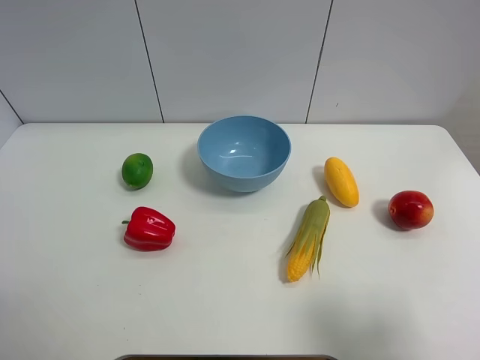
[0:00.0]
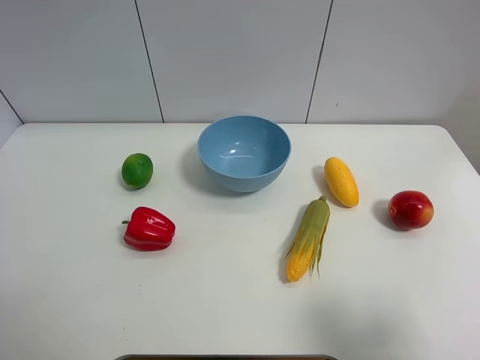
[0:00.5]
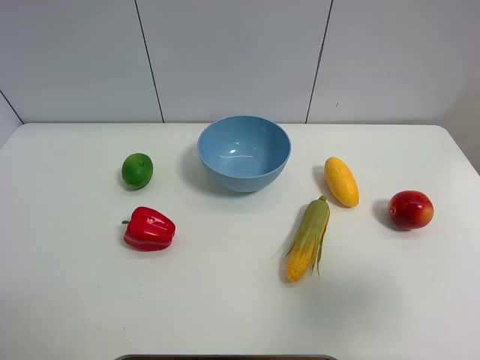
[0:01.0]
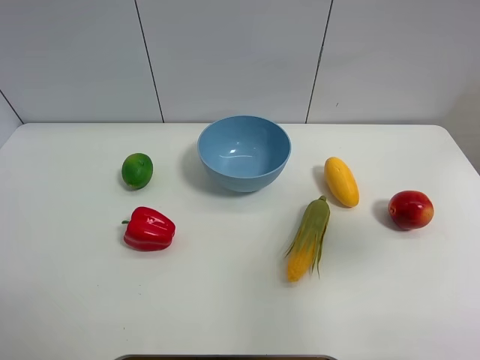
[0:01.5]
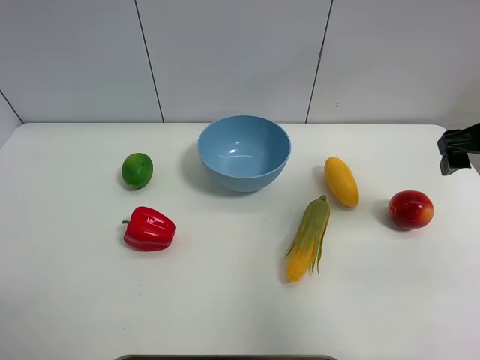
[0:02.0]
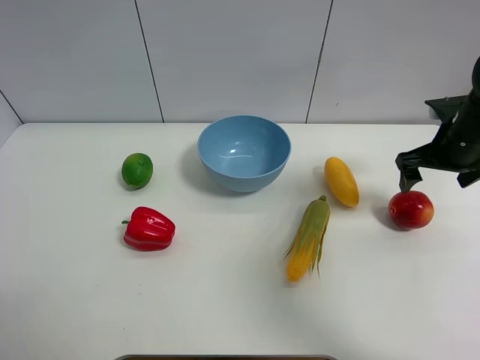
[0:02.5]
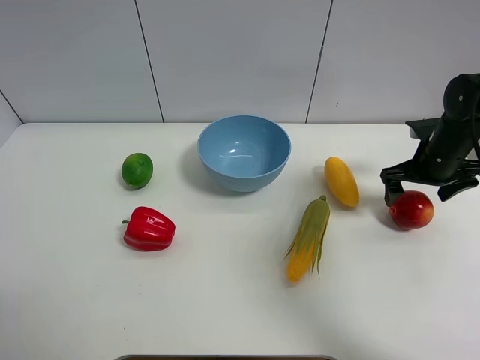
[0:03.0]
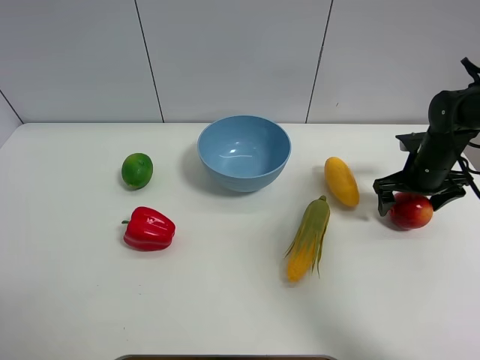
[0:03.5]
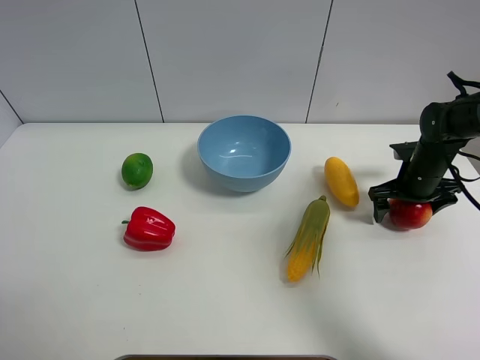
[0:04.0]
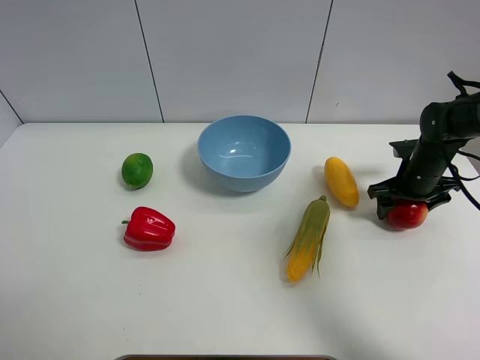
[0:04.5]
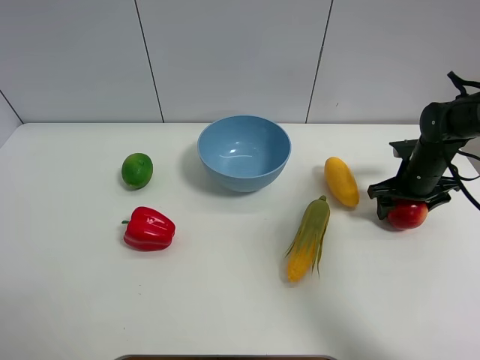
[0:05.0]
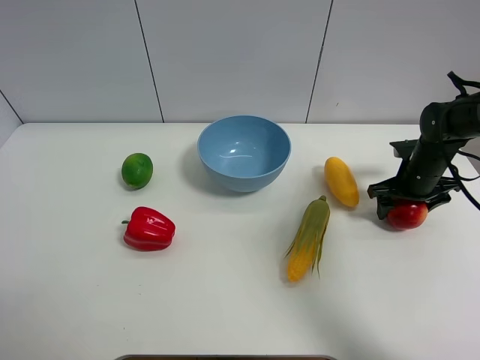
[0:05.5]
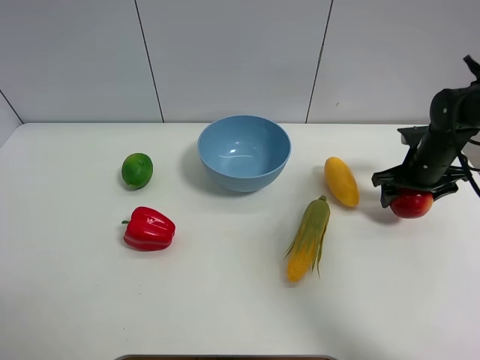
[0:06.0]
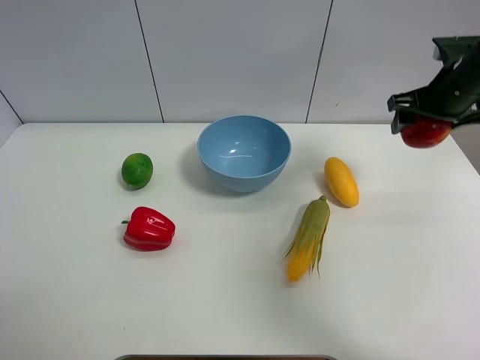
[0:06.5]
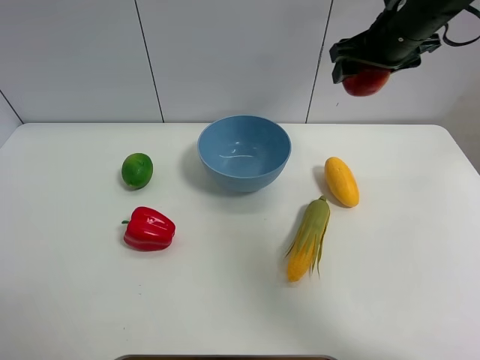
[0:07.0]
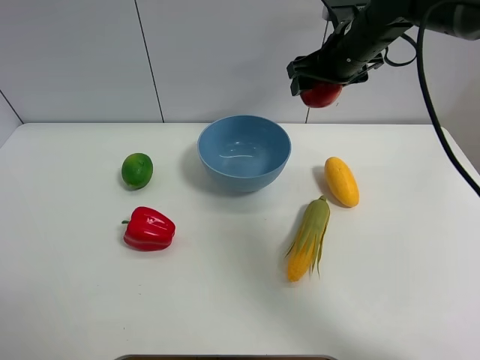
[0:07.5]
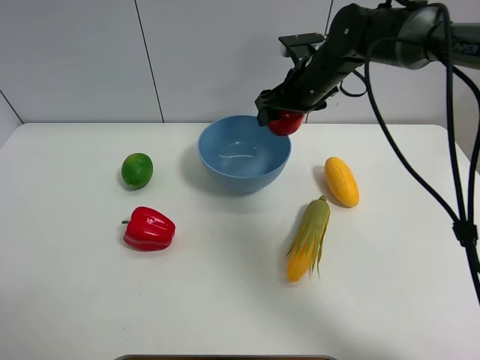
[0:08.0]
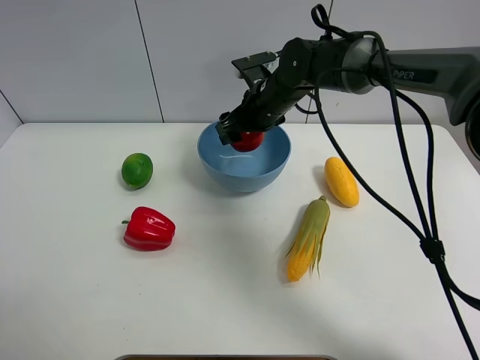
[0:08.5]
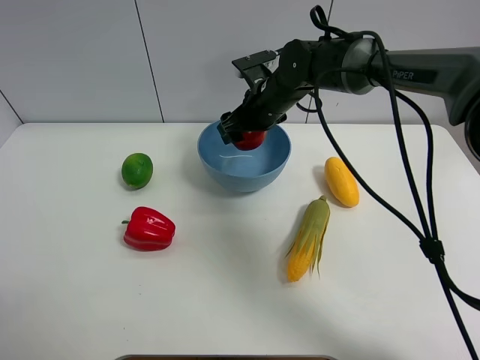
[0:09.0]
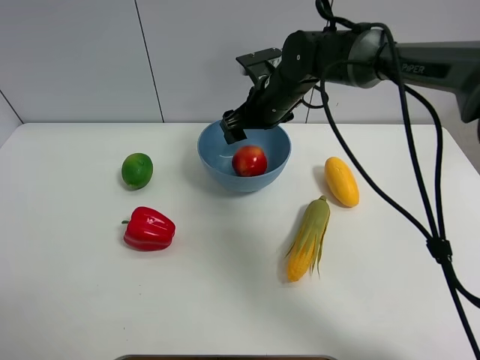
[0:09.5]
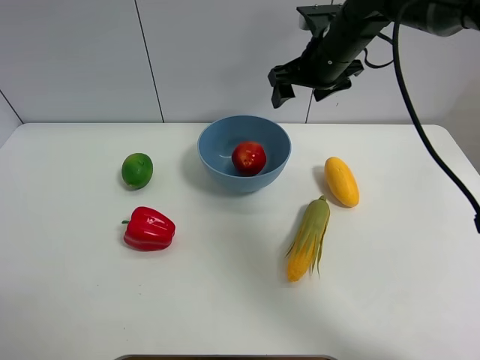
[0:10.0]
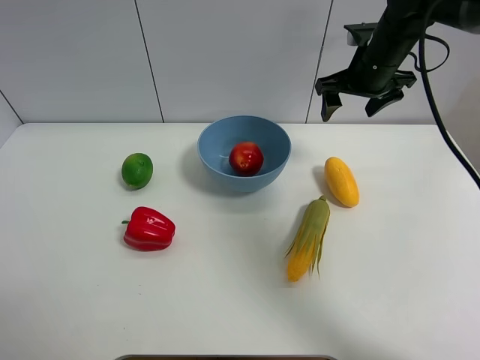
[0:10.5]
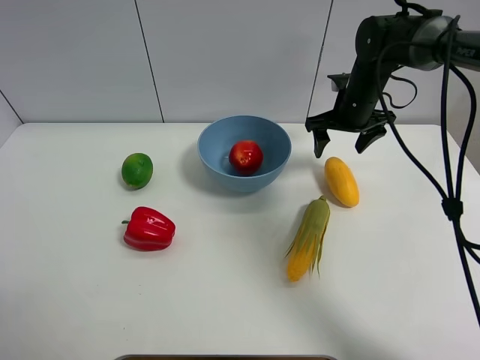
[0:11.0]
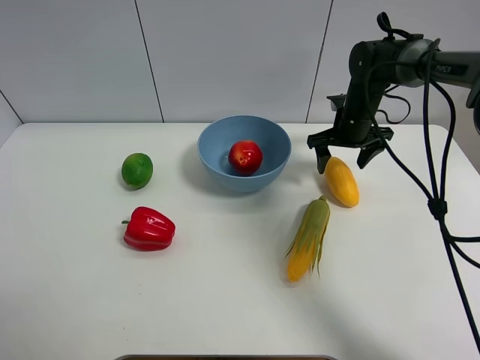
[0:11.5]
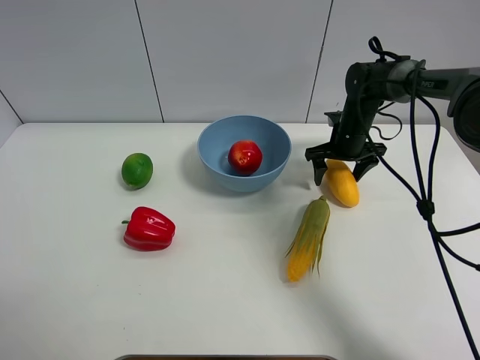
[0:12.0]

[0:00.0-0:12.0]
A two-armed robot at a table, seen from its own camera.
Task of the whole recording: Put the three fruits on the table into a bowl.
Step, 0:00.0 to 0:04.5: Grasp the pomegranate with right gripper.
Step, 0:05.0 to 0:09.0: Place the pomegranate in the blue bowl with right gripper.
0:00.0 to 0:02.0: The right gripper shifts roughly 30 cm forward.
0:02.0 to 0:04.0: The right gripper goes about 20 cm downward and forward.
0:04.0 to 0:06.0: The right gripper closes its fingers.
0:06.0 to 0:08.0: The right gripper goes about 20 cm to the left and upward.
0:08.0 to 0:10.0: The right gripper shifts some 5 cm upward.
0:10.0 to 0:12.0: The right gripper moves downward and to the right, about 20 cm.

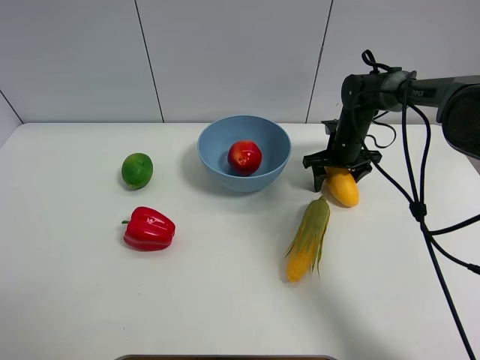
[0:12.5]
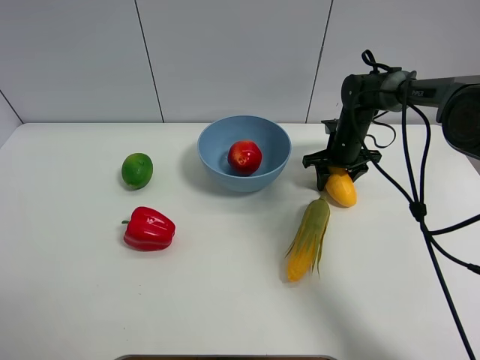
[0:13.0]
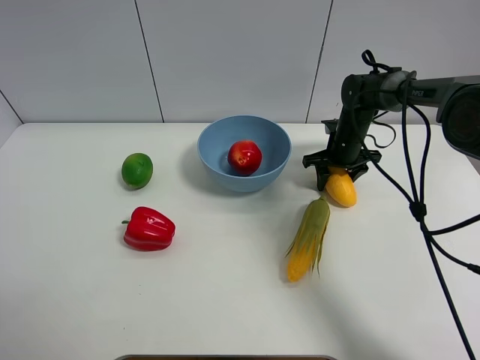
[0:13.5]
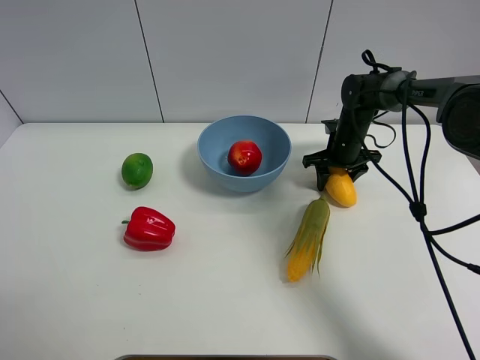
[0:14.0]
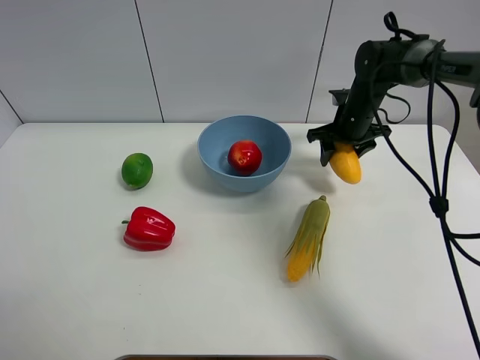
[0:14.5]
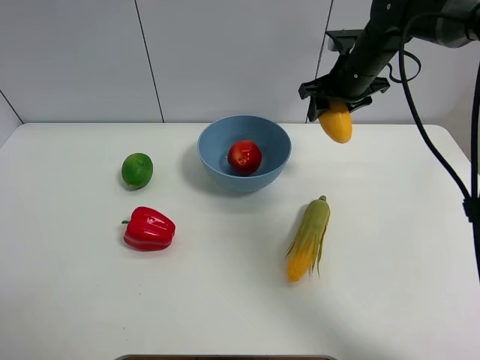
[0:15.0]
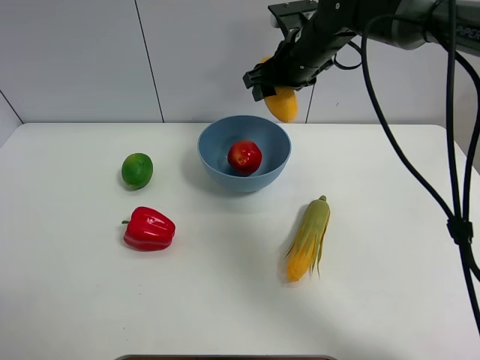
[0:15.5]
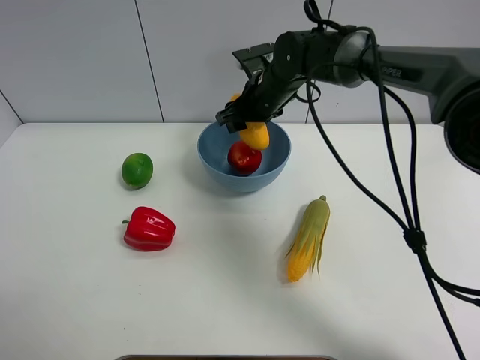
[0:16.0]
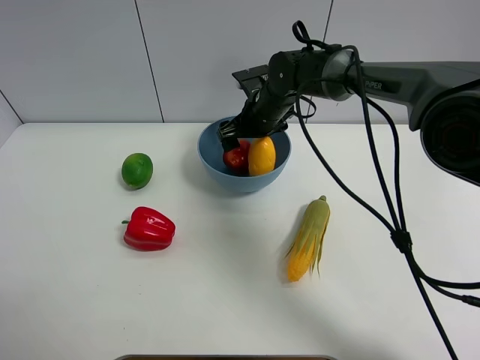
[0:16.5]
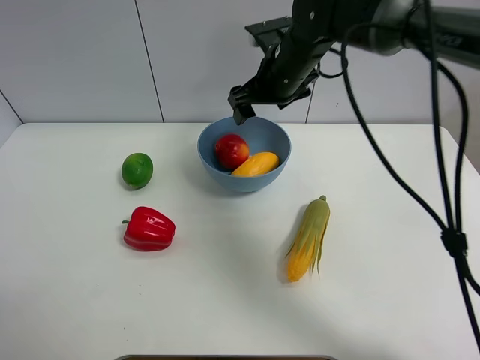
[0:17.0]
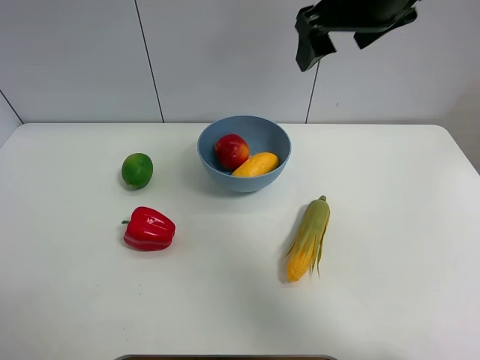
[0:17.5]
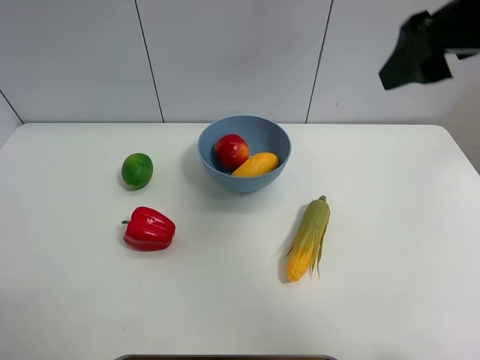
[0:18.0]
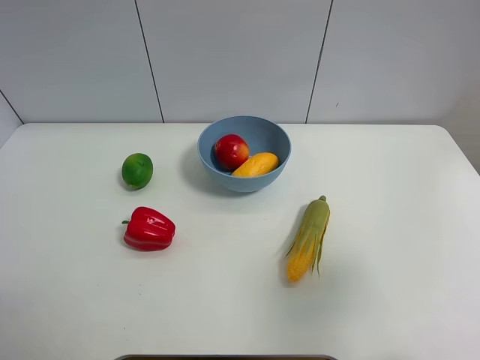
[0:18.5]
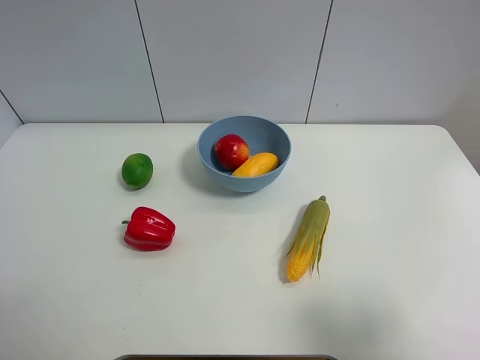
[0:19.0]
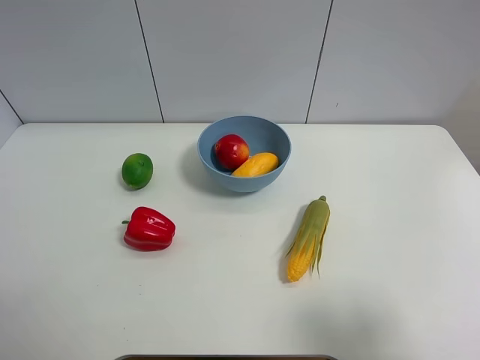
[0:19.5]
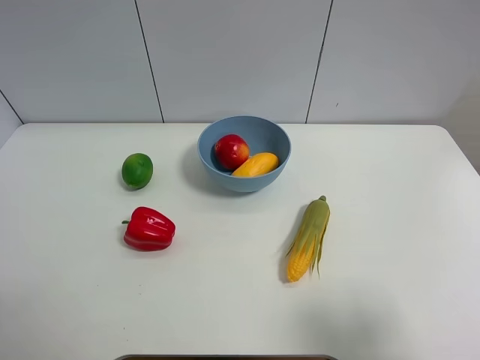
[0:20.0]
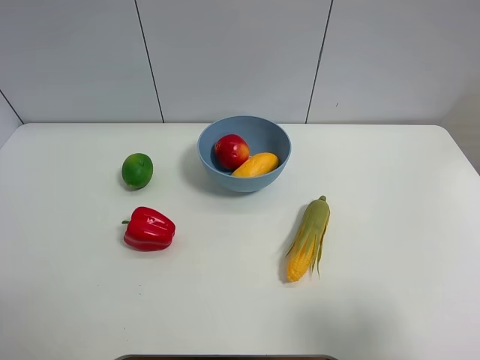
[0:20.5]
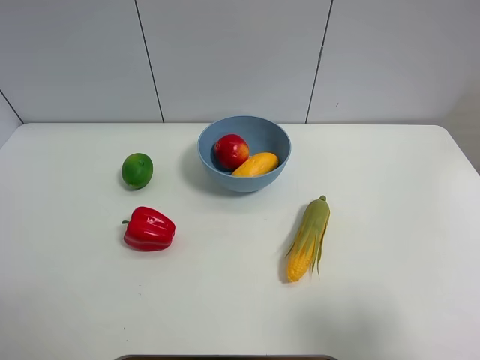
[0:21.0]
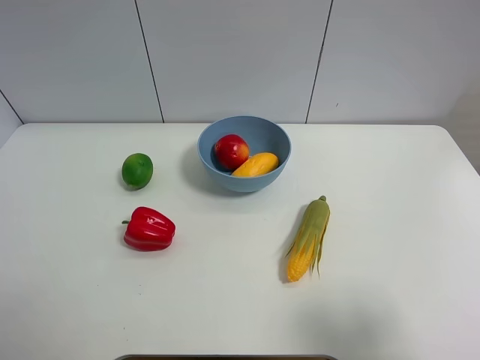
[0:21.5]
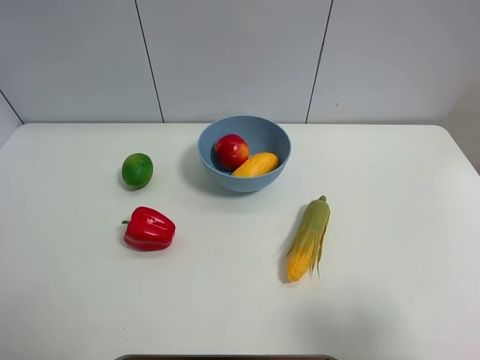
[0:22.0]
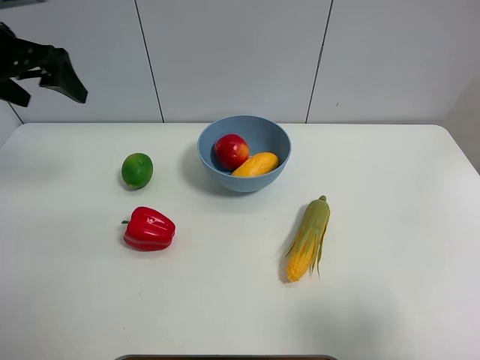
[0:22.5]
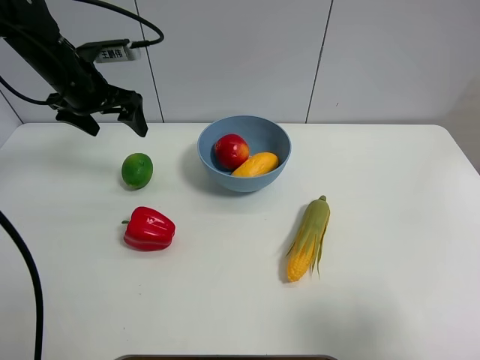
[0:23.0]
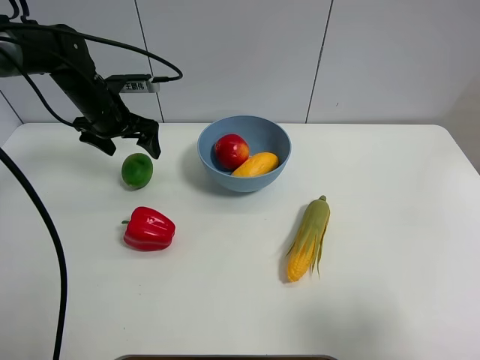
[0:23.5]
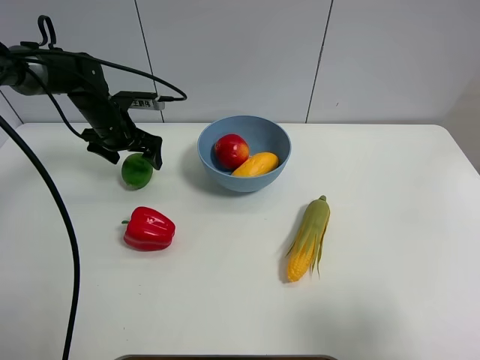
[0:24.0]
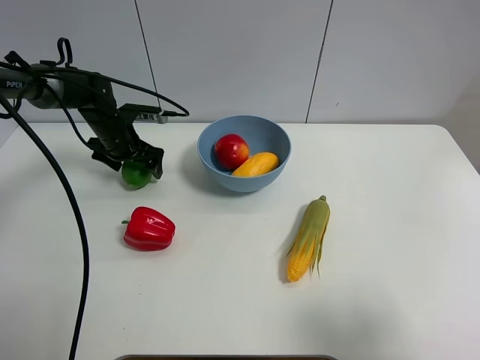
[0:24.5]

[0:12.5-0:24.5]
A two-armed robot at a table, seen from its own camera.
Task of the whole recording: Put the three fruits on the table into a bowl.
Step, 0:13.0 to 0:16.5: Place the mango in the blue bowl with right gripper.
0:12.5 to 0:14.5: The right gripper goes some 5 cm upward.
0:14.5 to 0:16.5: The right gripper heads to the left, covering some 15 cm, and opens.
0:16.5 to 0:18.5: The right gripper moves backward, to the right and upward, some 50 cm.
0:18.5 to 0:20.5: The right gripper heads backward, covering some 5 cm.
0:20.5 to 0:22.5: The left gripper goes about 35 cm forward.
0:22.5 to 0:24.5: The left gripper travels downward and forward by approximately 25 cm.

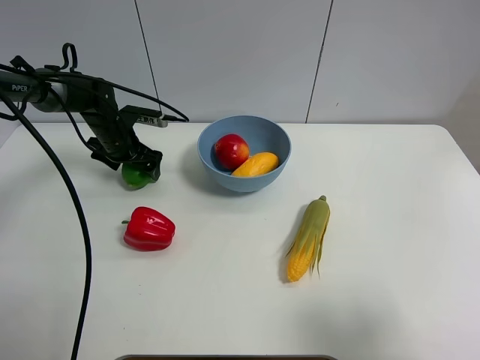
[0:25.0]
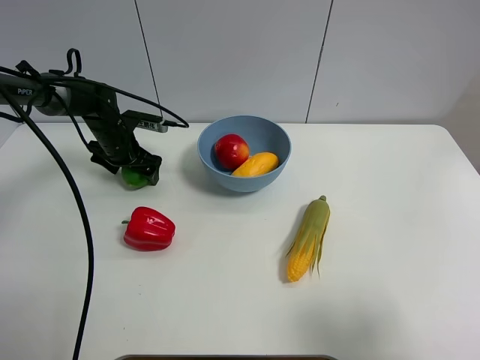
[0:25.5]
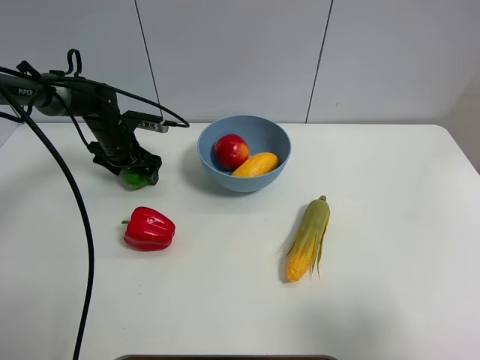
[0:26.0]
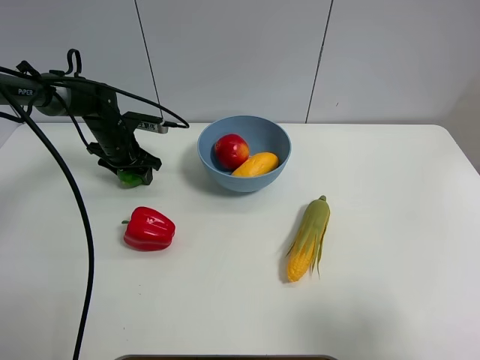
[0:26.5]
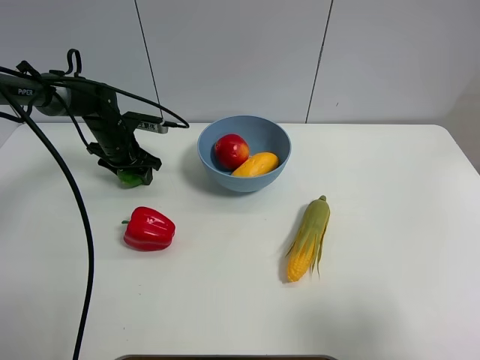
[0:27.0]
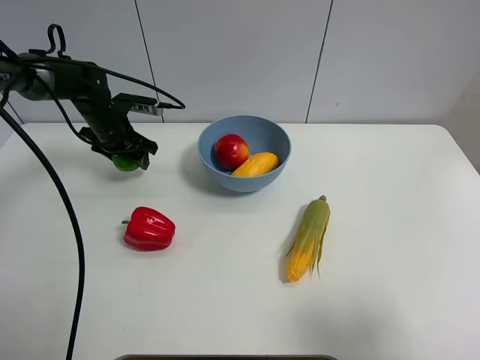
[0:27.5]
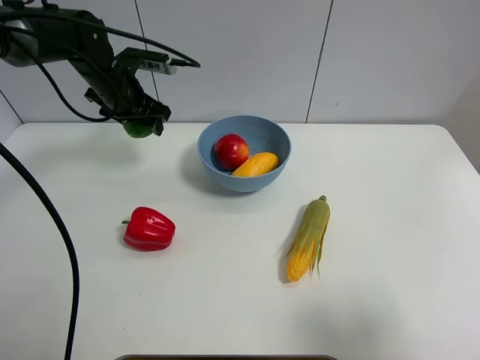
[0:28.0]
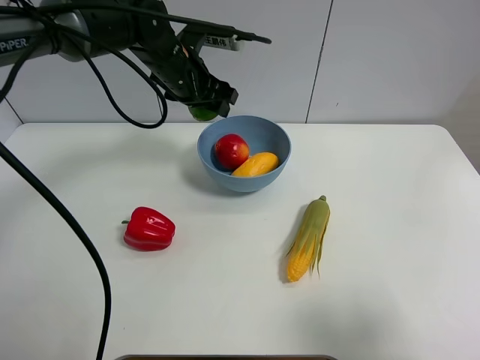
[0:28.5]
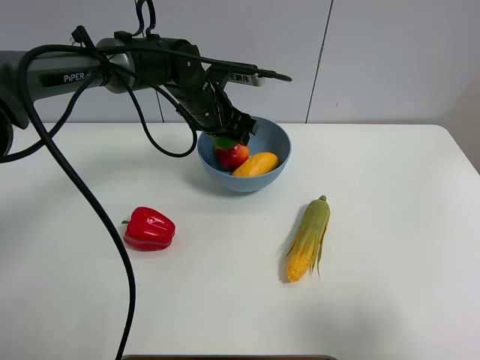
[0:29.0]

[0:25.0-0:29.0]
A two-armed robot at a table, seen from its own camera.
Task of the whole recording: Put the three fruits on the table into a bowl.
0:25.0 to 0:27.0: The left gripper closes up.
0:27.0 to 0:29.0: The left gripper moves to the right and upward, some 20 cm.
